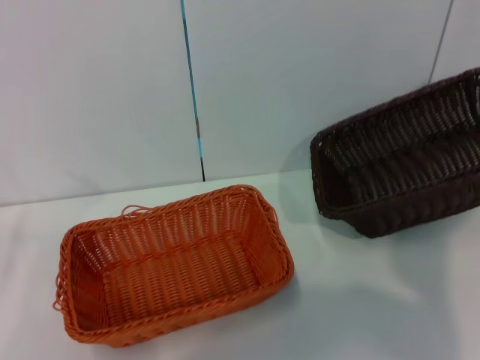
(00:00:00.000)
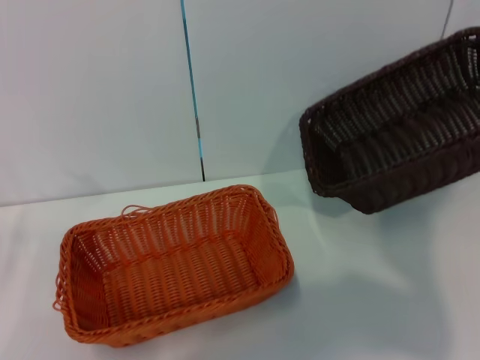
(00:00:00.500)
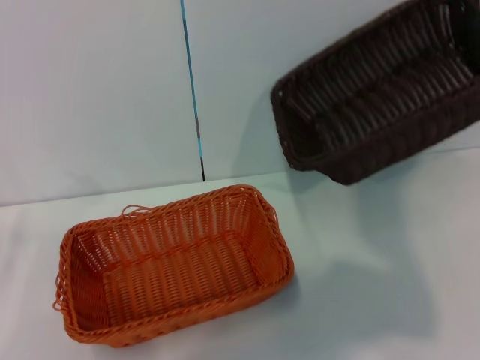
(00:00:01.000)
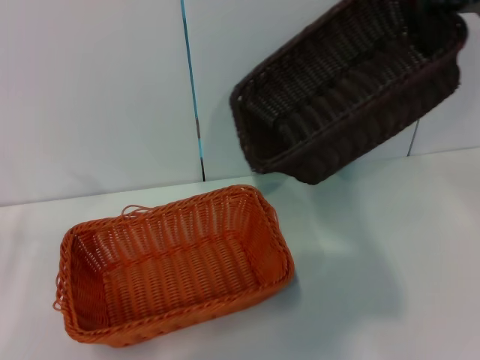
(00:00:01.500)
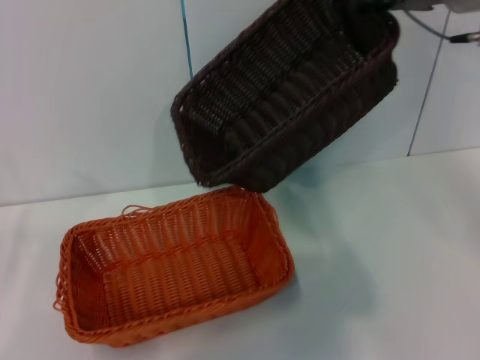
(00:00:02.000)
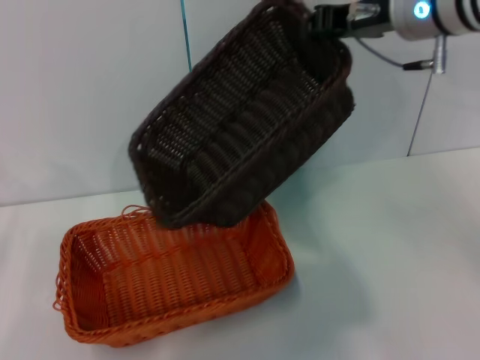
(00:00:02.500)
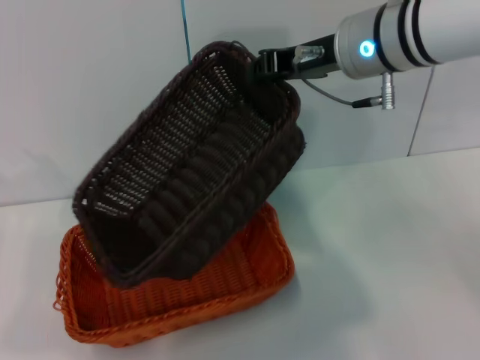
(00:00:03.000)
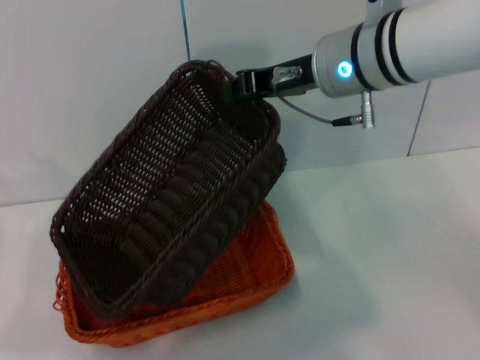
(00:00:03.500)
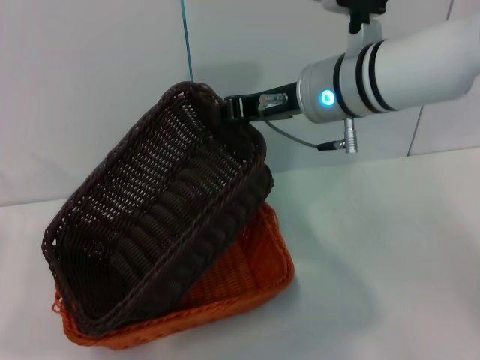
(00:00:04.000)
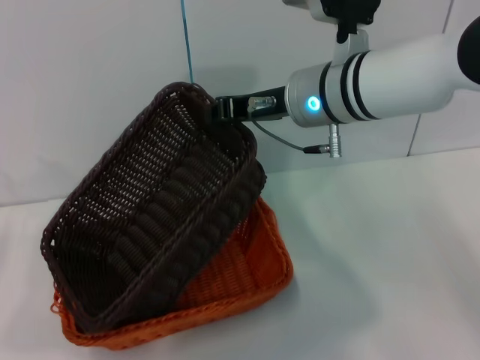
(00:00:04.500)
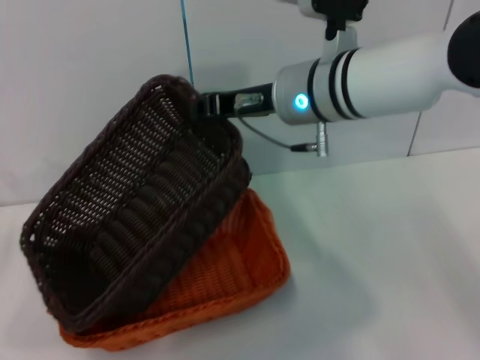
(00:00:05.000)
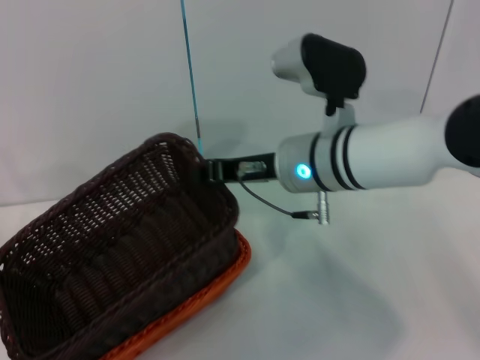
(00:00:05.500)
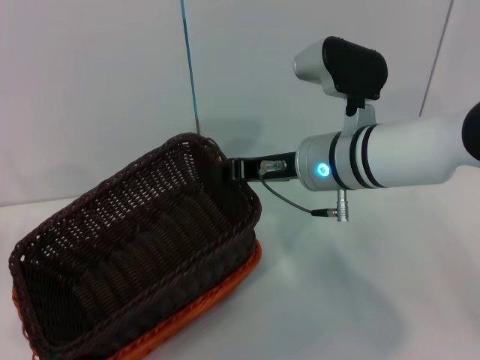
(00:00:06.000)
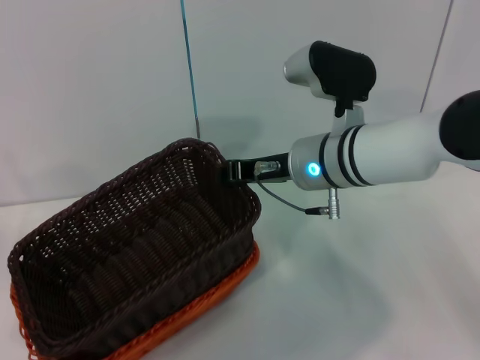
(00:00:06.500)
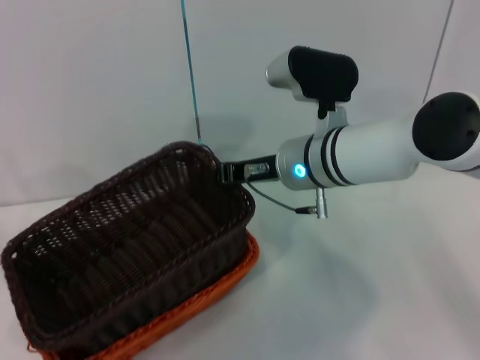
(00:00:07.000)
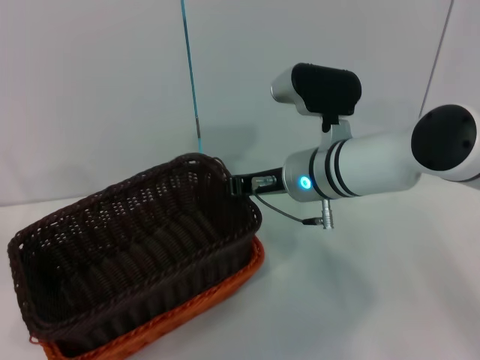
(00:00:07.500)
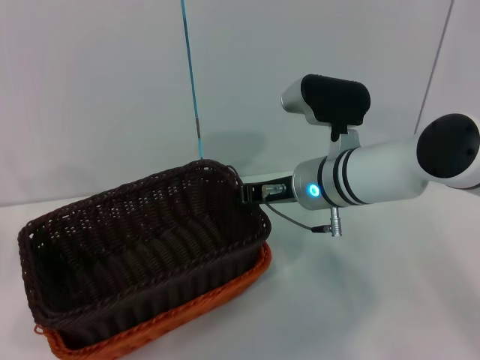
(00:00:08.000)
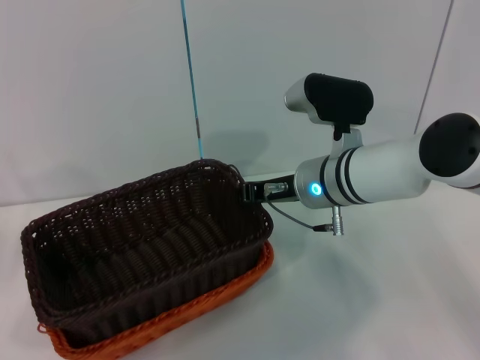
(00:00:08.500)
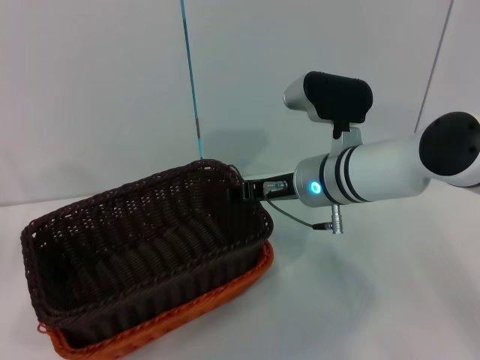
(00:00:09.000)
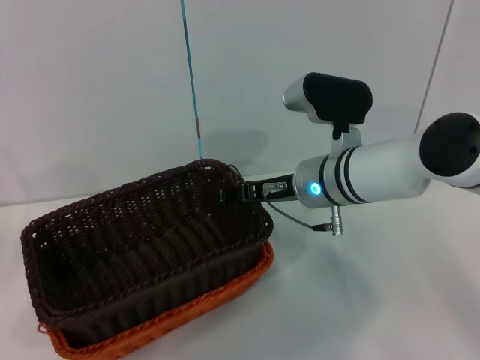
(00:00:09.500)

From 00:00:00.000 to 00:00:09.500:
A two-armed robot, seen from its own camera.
From 00:00:00.000 to 00:00:02.000: The right gripper travels to the left and upward by approximately 20 cm.
From 00:00:02.000 to 00:00:04.000: The right gripper shifts roughly 15 cm to the left and downward.
From 00:00:04.000 to 00:00:05.500: The right gripper moves downward, some 5 cm.
From 00:00:05.500 to 00:00:07.500: The grippers stay close to where they were, moving slightly.
From 00:00:07.500 to 00:00:09.500: The right gripper opens its fingers.

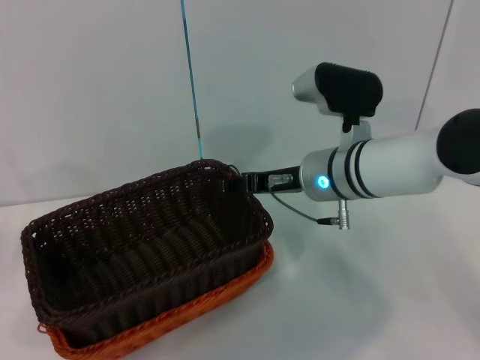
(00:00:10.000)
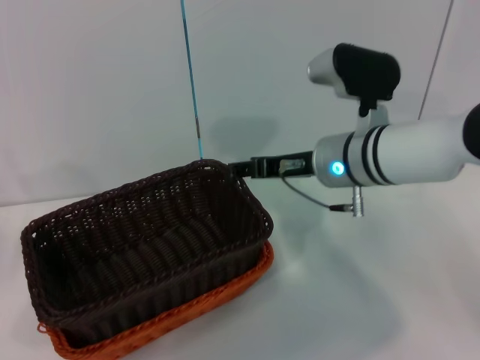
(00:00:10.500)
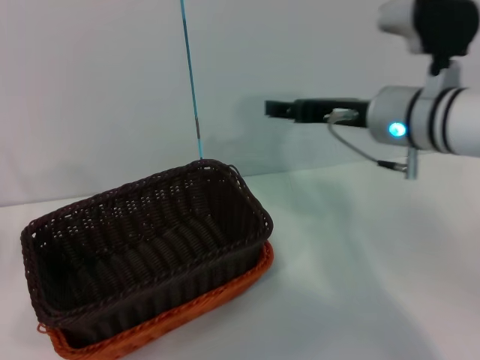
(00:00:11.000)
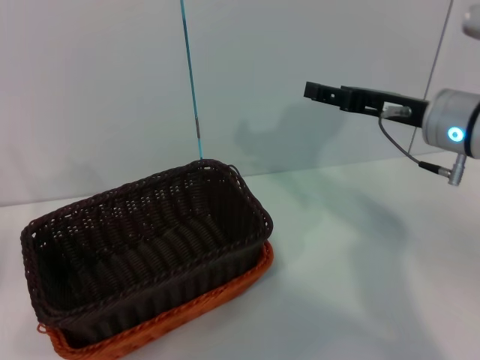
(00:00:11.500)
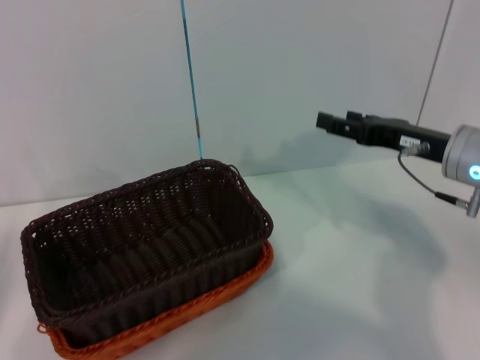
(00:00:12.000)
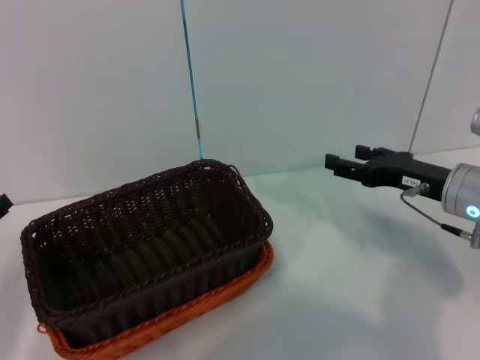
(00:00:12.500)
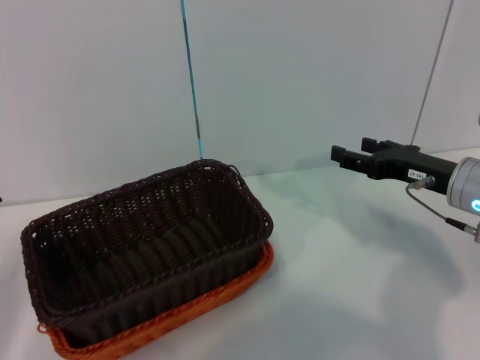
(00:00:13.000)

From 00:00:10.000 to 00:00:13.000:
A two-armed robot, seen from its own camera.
From 00:00:10.000 to 00:00:11.500: The right gripper travels to the right by some 10 cm.
From 00:00:11.500 to 00:00:13.000: The right gripper travels downward by some 10 cm; the left gripper shifts by about 5 cm.
